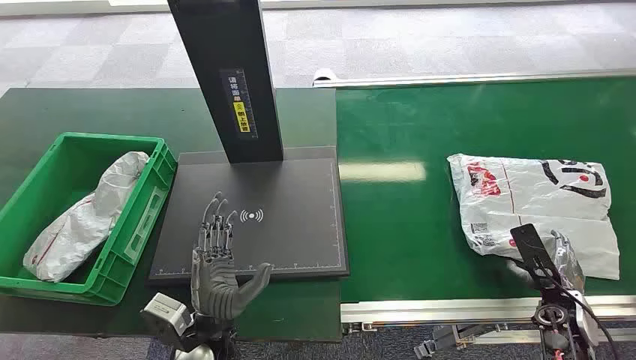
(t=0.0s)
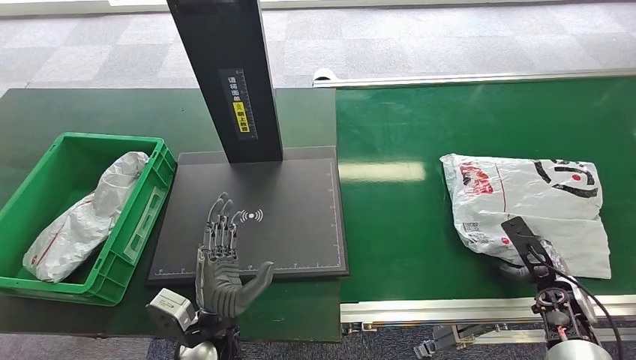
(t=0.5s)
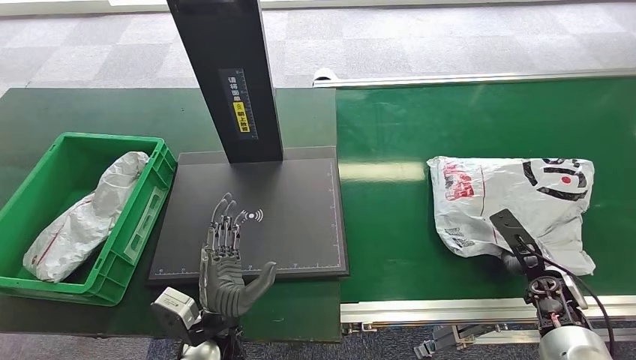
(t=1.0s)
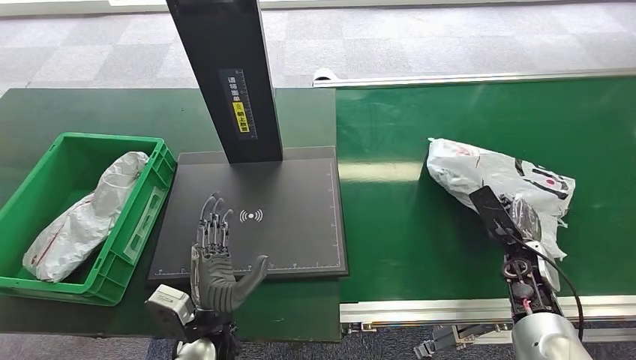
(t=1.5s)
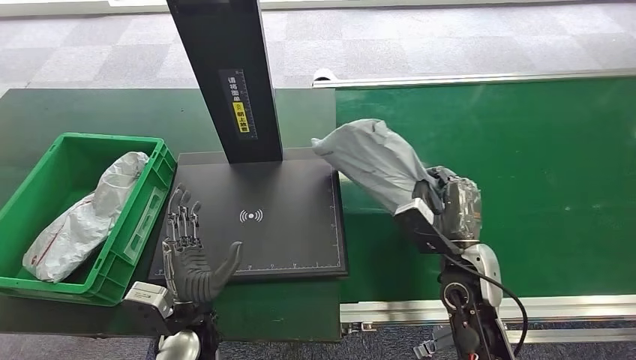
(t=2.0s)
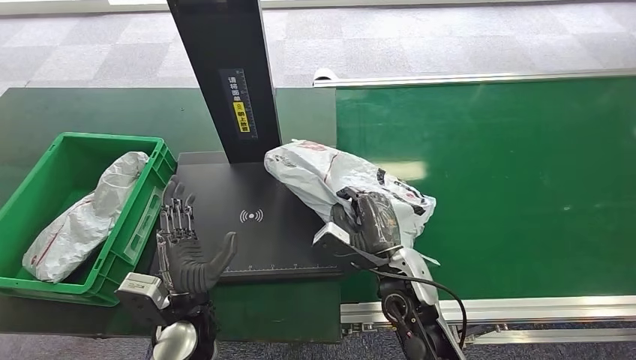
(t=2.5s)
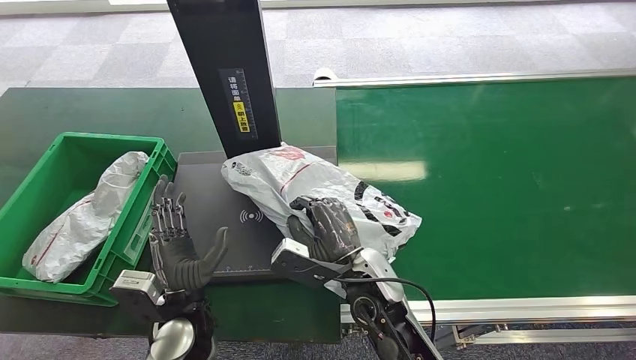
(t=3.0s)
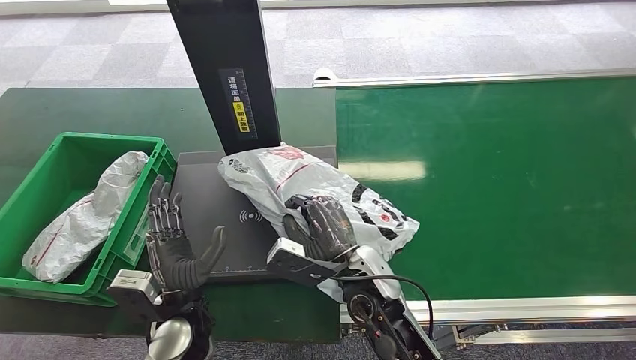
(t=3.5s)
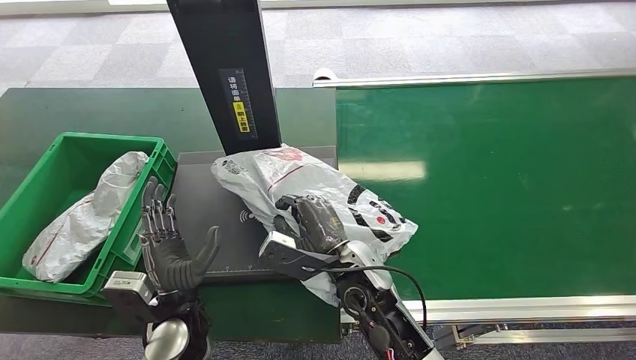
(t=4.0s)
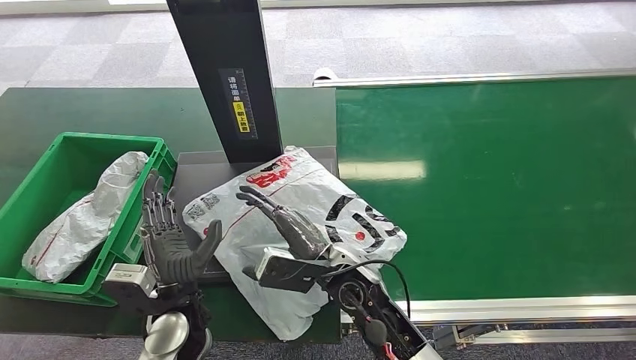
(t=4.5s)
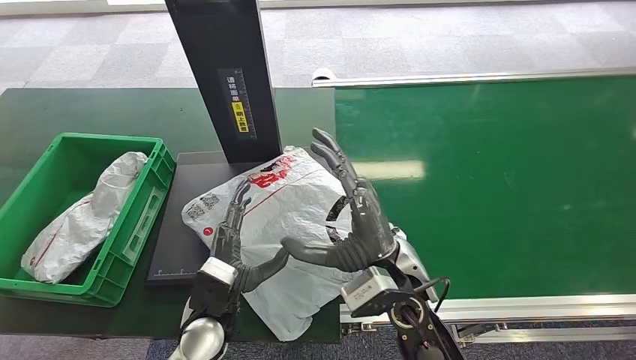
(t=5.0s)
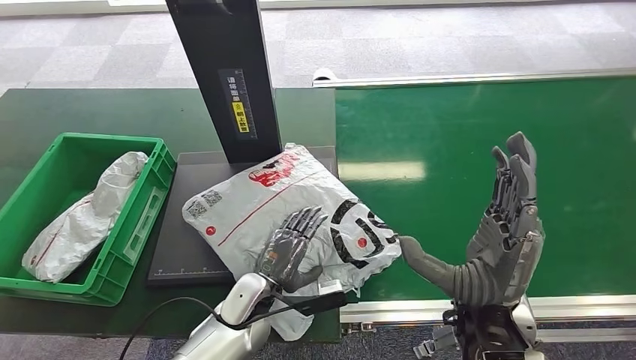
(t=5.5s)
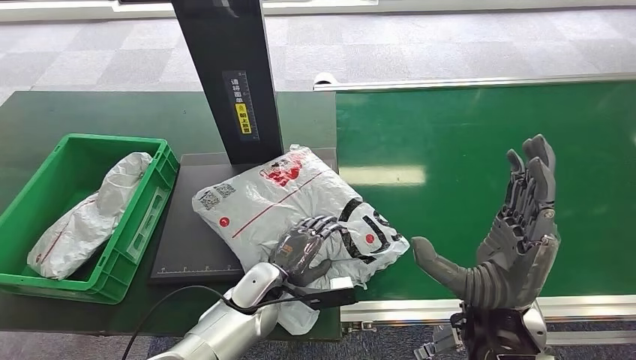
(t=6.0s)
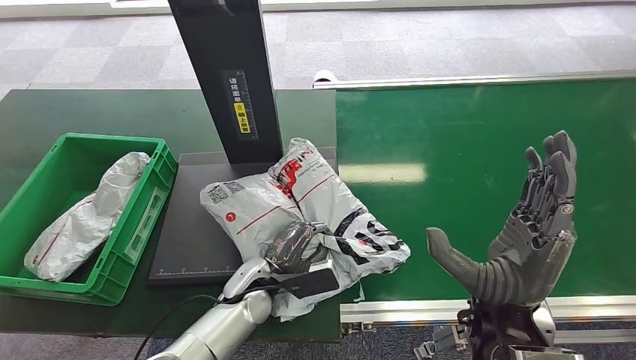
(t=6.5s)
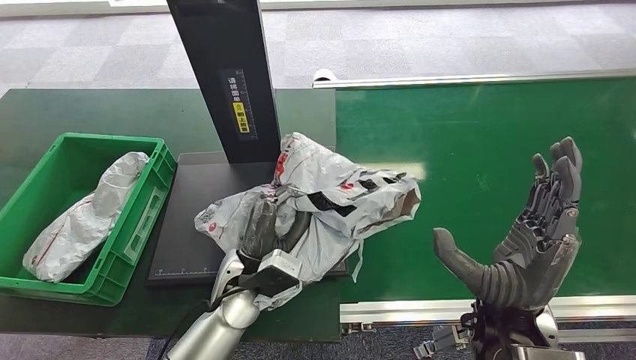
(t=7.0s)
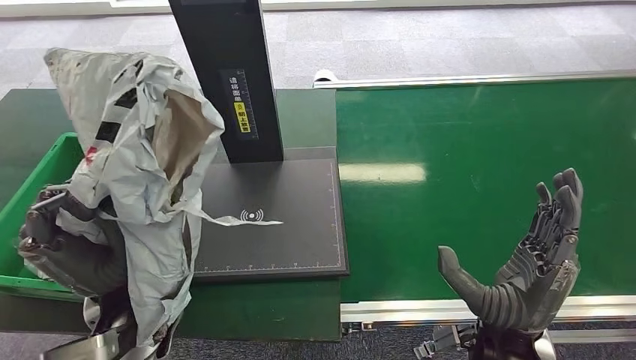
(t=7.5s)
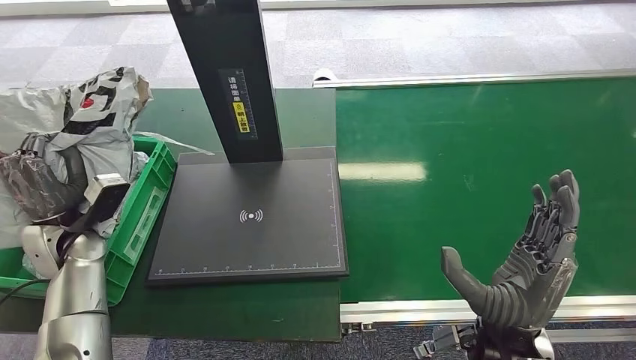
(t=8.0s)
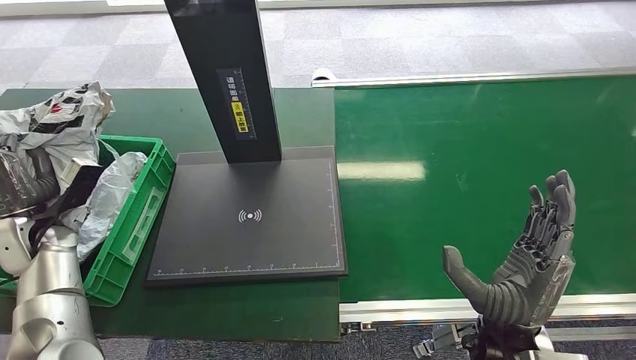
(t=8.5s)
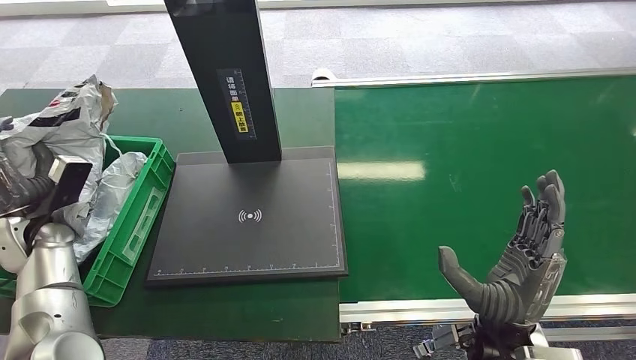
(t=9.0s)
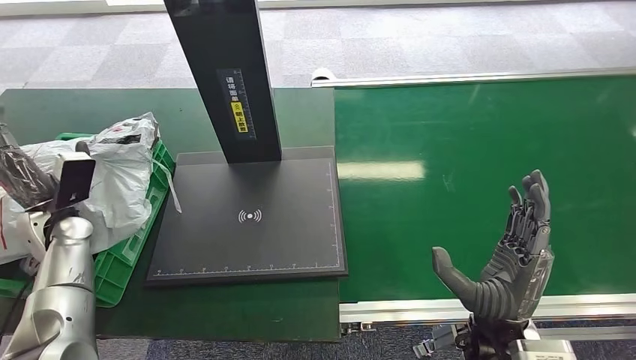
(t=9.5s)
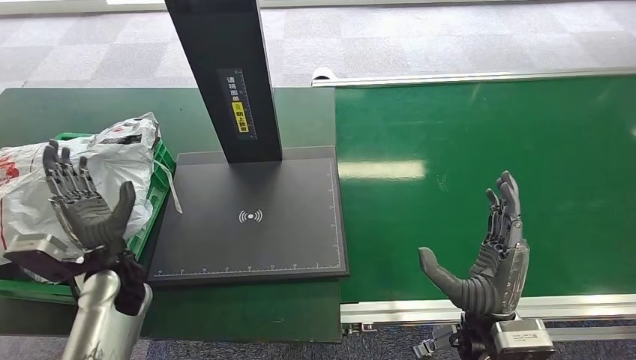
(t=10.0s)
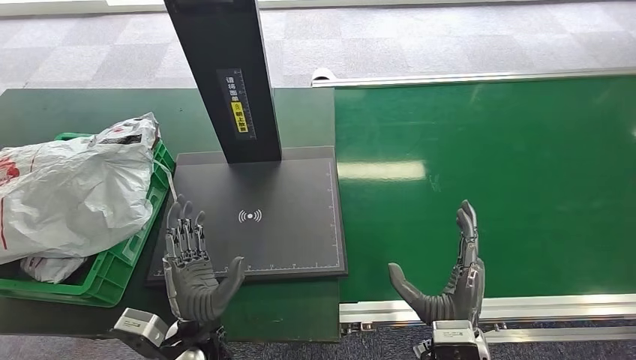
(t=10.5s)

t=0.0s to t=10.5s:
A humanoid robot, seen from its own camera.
Task of the whole recording: Weigh the package on the weighing device and place it in the left basket.
Step, t=0.0s to t=1.5s: Pick up the package from the conveyor belt.
Step, t=2.0s to t=4.5s: Place the package onto the inbound machine.
Step, t=5.0s to t=7.0s: Pick up the package from the inbound machine.
Step, t=7.5s to t=10.5s: Place the package into the parcel locker.
t=8.5s to t=10.5s: The right hand travels downward by roughly 5 cm, while the left hand moves to the right and backward, approximately 30 cm.
